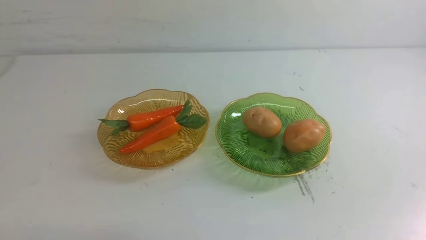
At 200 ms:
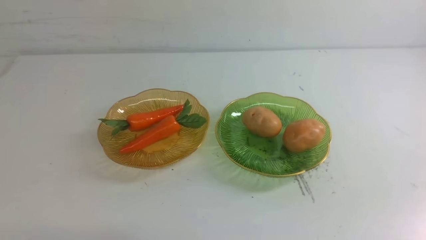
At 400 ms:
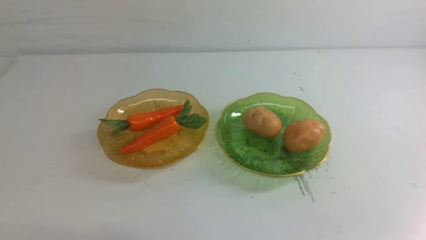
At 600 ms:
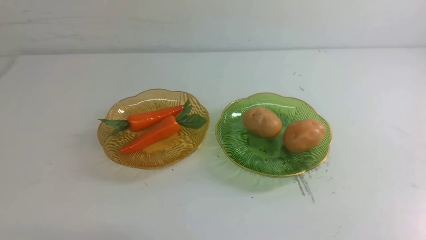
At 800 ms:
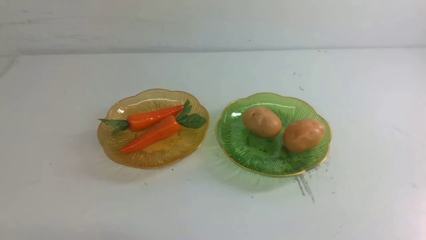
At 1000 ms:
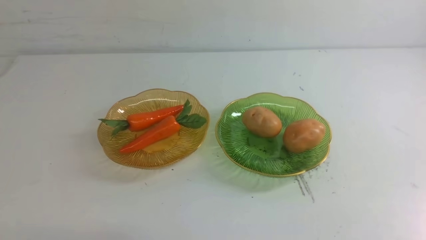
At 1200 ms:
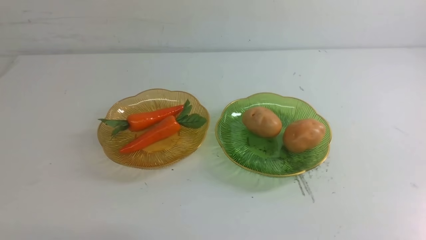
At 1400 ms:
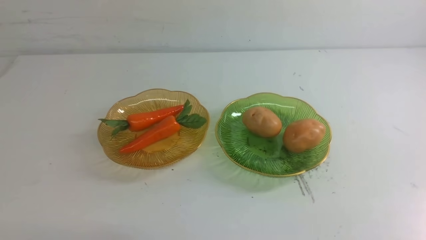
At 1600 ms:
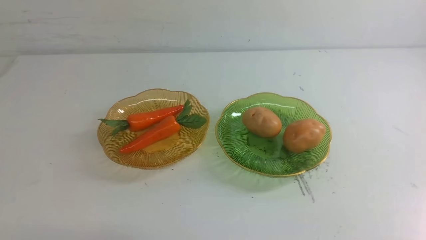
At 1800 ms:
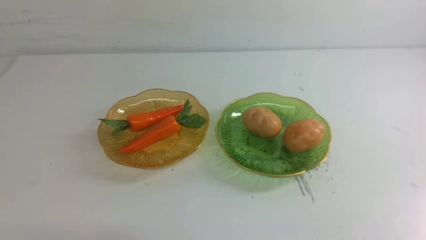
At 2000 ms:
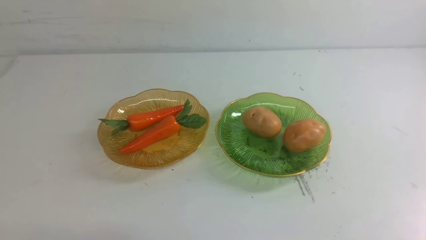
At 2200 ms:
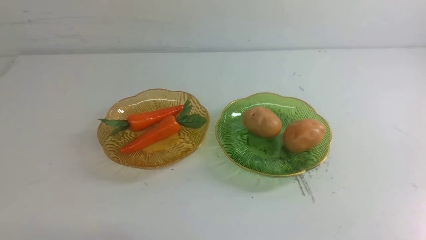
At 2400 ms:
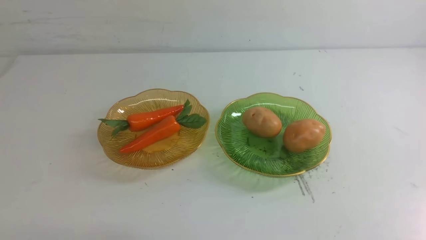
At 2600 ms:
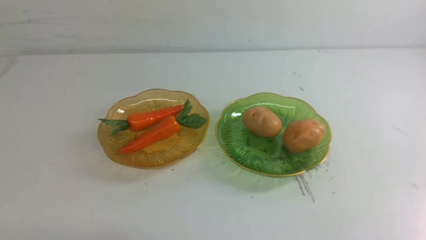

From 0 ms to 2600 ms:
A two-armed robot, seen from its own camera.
From 1200 ms to 2600 ms: Neither gripper changes place.

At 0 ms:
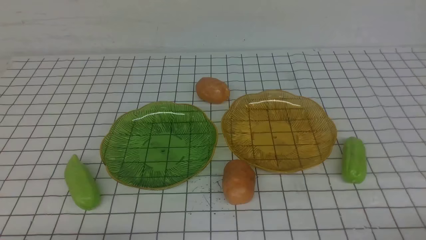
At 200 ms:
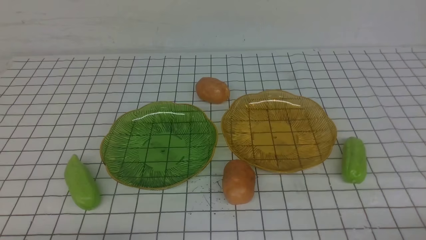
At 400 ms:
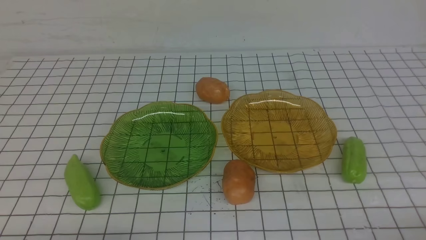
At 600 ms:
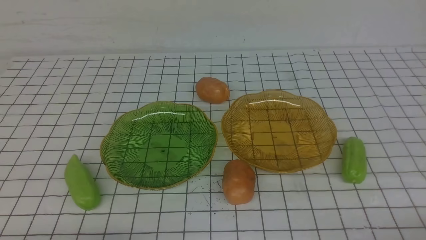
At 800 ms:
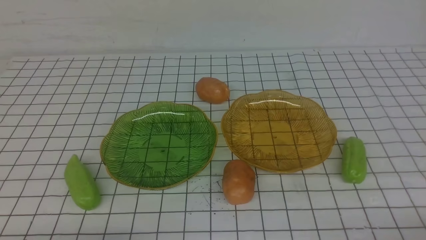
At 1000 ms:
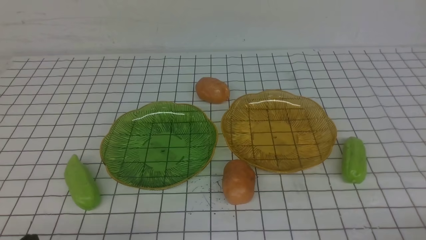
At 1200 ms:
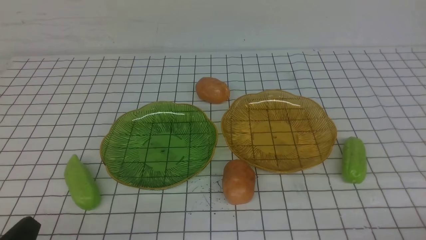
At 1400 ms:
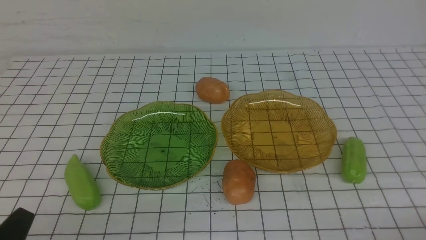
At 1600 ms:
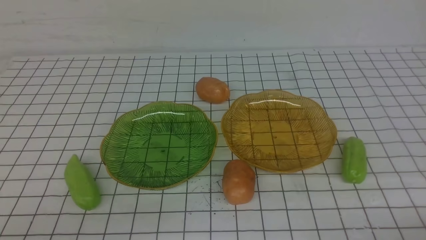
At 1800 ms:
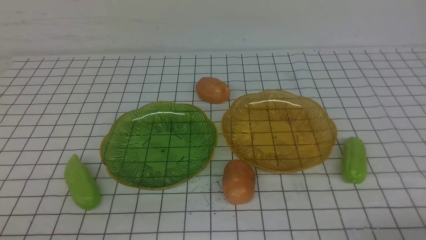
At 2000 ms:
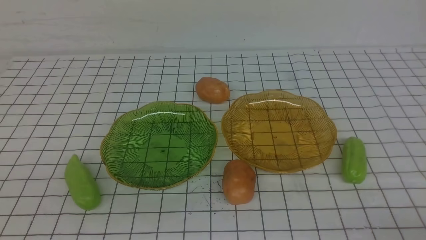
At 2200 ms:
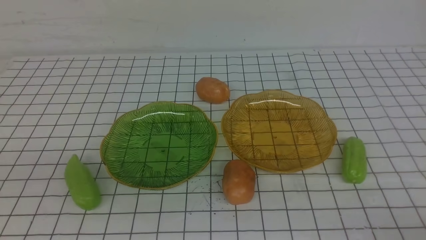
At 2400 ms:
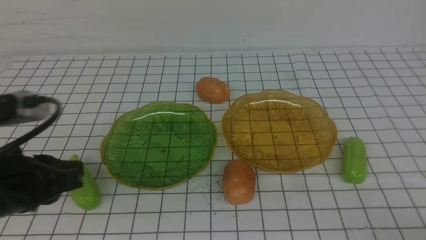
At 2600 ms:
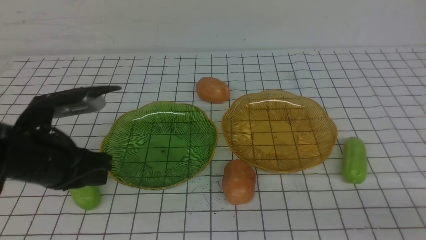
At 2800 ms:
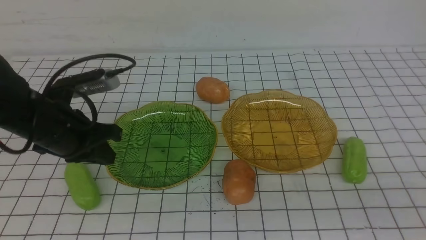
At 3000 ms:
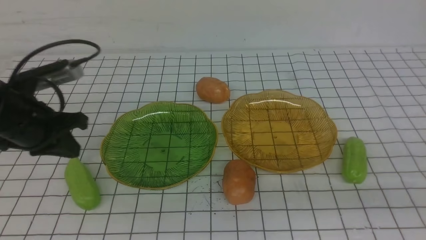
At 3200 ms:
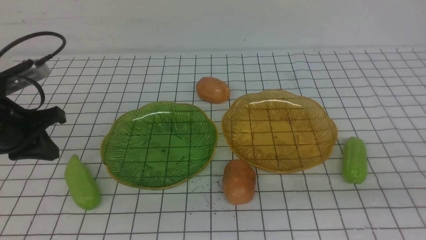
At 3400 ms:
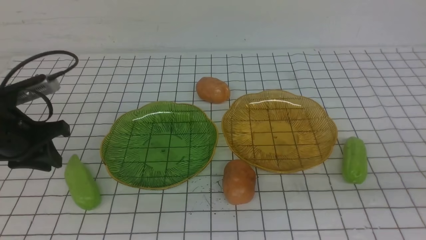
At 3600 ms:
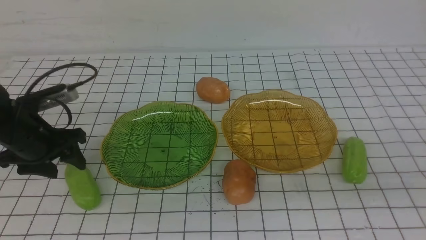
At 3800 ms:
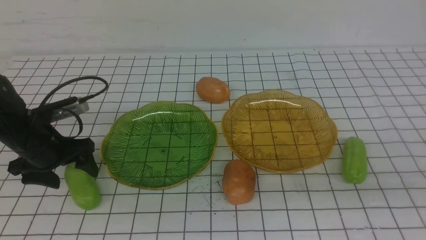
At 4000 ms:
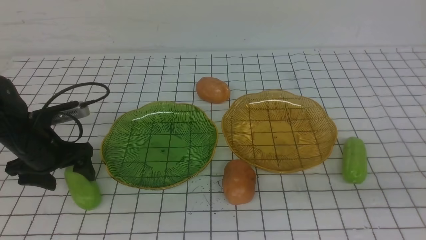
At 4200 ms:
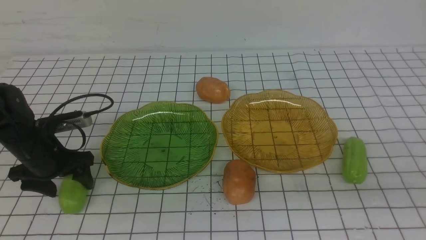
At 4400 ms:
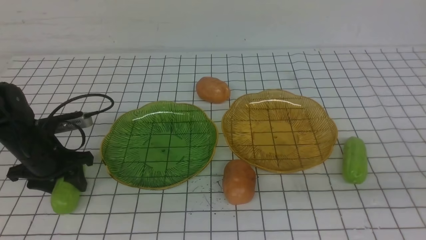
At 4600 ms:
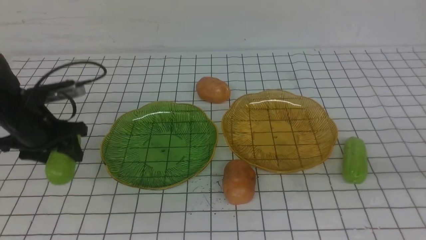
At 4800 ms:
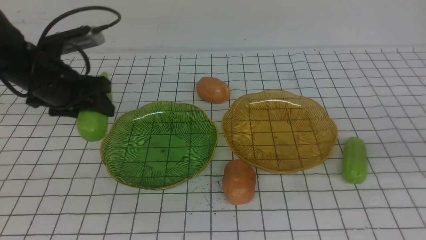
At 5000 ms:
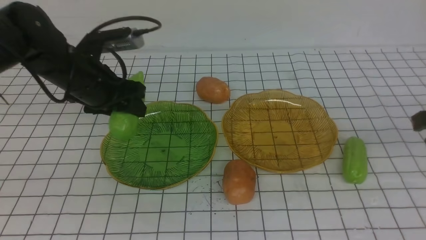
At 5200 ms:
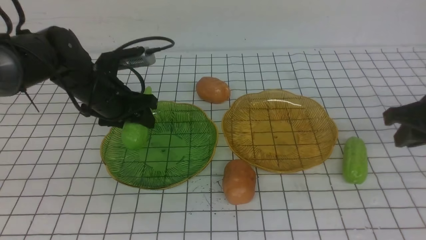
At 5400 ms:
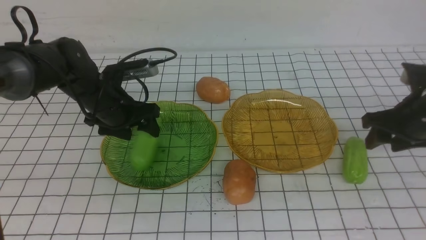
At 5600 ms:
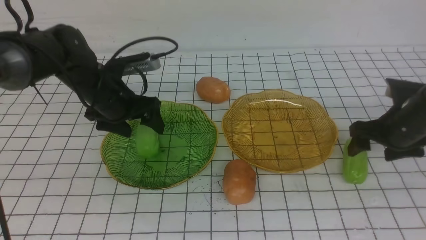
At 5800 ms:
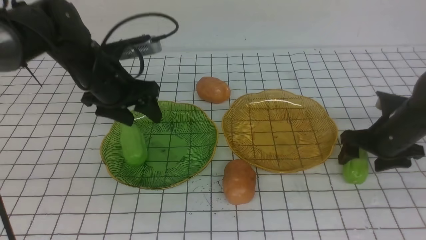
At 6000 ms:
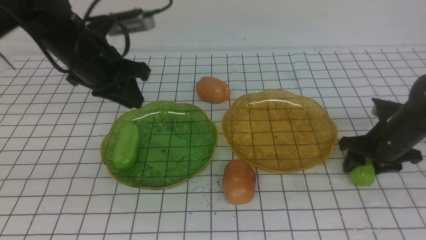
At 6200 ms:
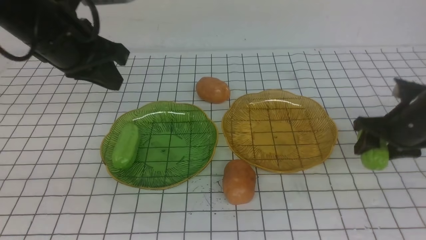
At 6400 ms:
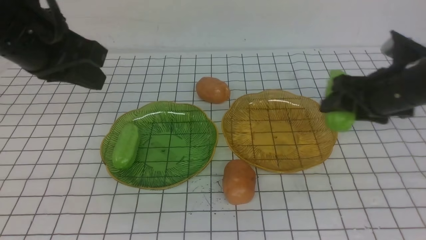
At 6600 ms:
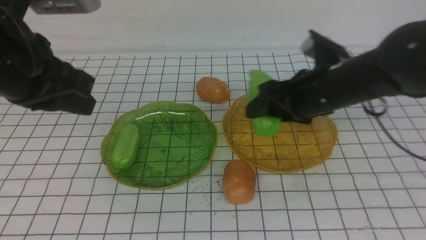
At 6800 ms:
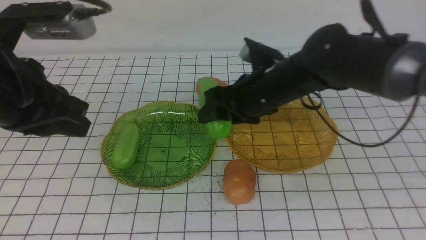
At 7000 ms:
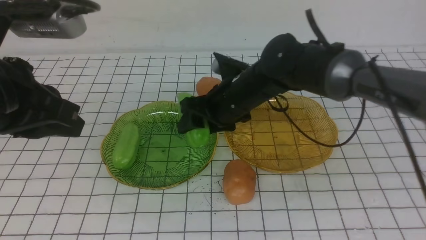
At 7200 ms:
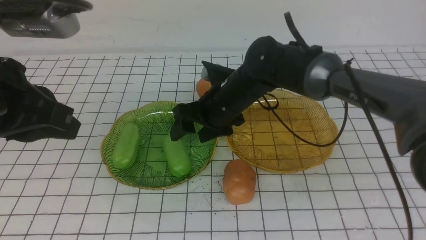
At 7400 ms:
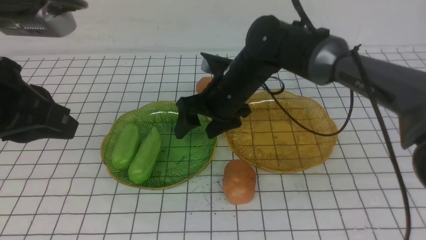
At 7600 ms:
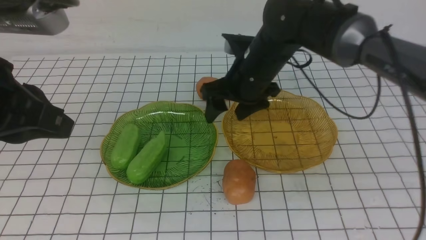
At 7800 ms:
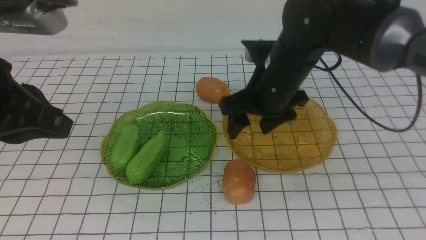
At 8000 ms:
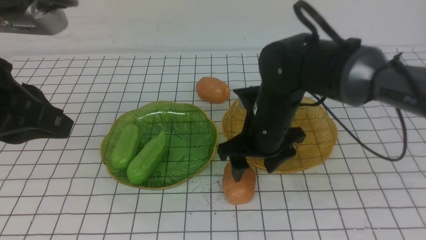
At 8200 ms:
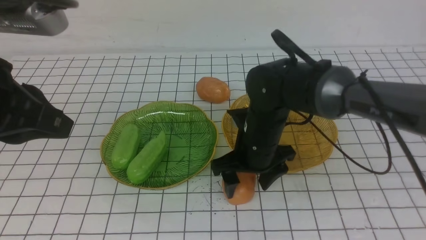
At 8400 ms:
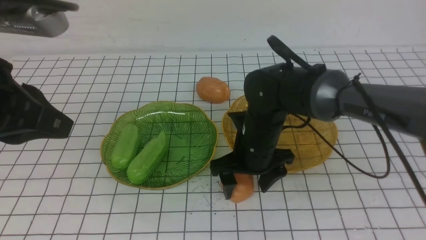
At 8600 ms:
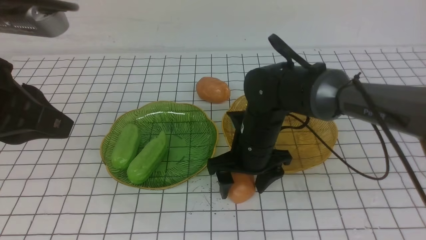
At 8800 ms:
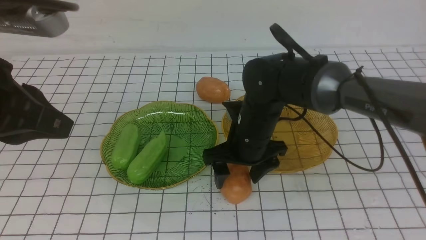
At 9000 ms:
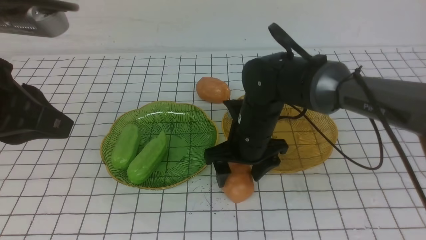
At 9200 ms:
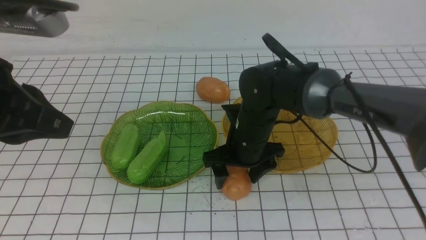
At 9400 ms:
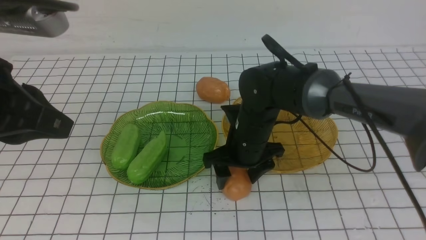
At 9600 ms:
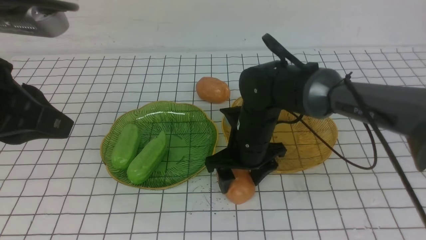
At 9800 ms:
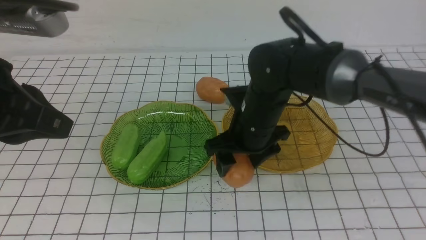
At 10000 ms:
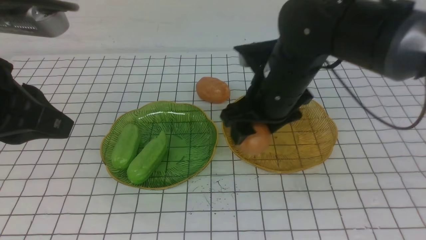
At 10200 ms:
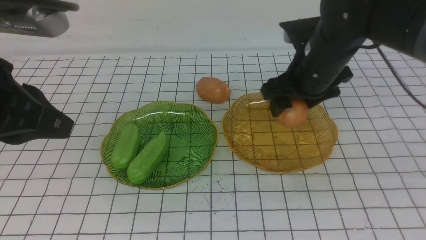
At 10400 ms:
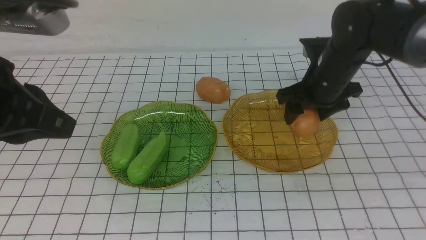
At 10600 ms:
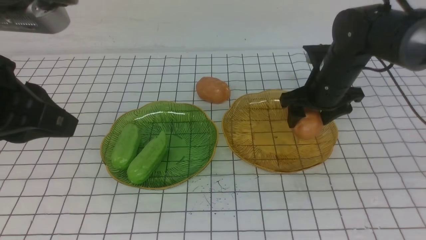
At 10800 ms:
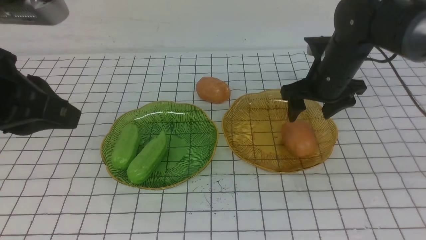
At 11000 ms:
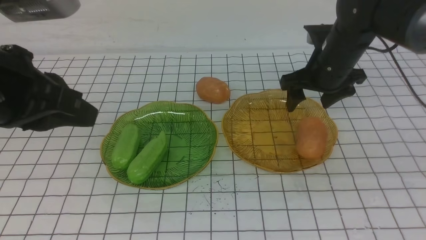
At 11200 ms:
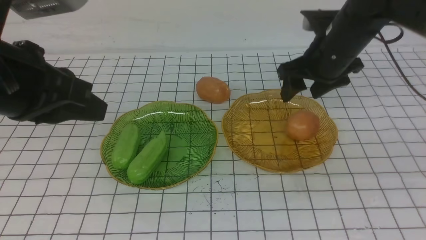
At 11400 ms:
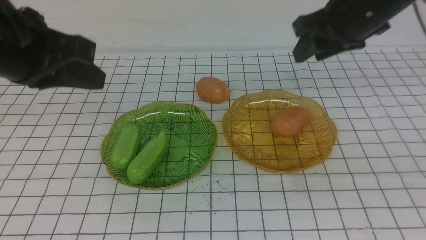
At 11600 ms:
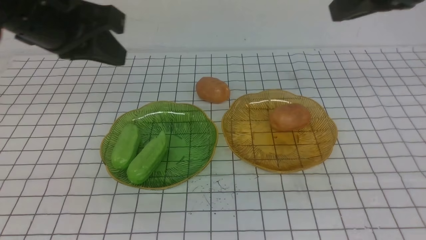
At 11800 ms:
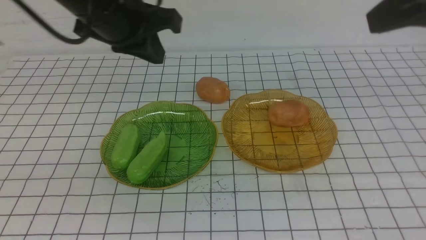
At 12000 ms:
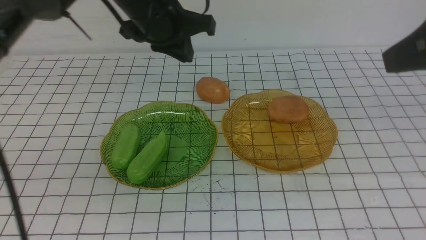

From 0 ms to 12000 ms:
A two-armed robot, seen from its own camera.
Step, from 0 ms to 5600 ms: use the left arm to grab a chayote and put it into the left plate.
Step, from 5800 ms to 7200 ms: use the left arm to grab a chayote and put it into the left plate.
Step, from 7400 ms to 10600 ms: Grab a potato with your right arm and put it on the right plate.
From 1600 ms to 3000 ms: The left gripper travels forward by approximately 25 cm.
From 3000 ms to 4400 ms: The left gripper heads downward, covering about 10 cm, and opens up.
From 4400 ms to 6000 ms: The left gripper swings up and down, approximately 15 cm each way, with 2 reversals, and closes, while the right gripper is displaced forward and downward by some 30 cm, and opens its fingers.
From 6000 ms to 7600 ms: The left gripper moves backward, roughly 15 cm. The right gripper heads to the left, covering roughly 25 cm.
From 7600 ms to 9000 ms: The right gripper moves downward, approximately 10 cm.
From 9000 ms to 10400 ms: The right gripper travels to the right, upward and forward by some 15 cm.
From 10400 ms to 12000 ms: The right gripper shifts roughly 30 cm backward and upward, and closes. Meanwhile the left gripper travels forward and to the right by about 25 cm.

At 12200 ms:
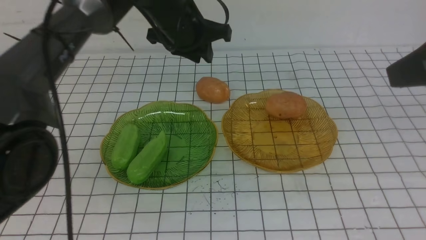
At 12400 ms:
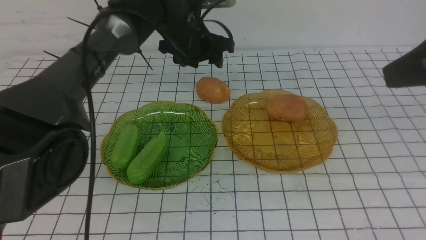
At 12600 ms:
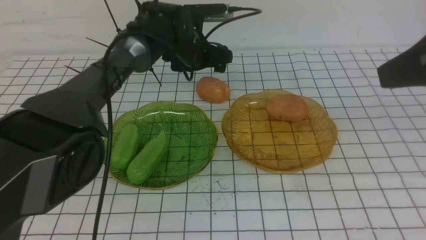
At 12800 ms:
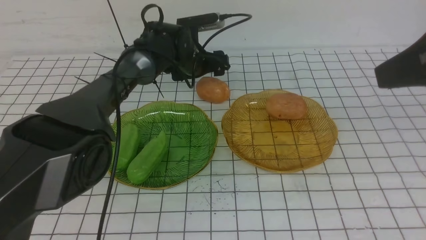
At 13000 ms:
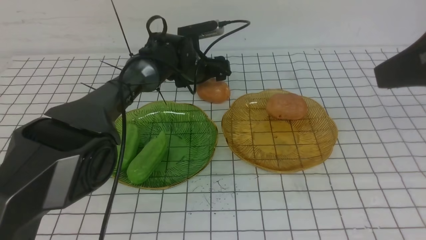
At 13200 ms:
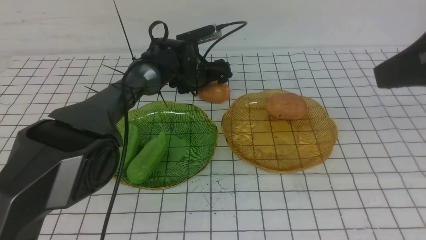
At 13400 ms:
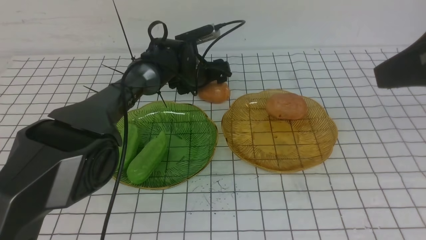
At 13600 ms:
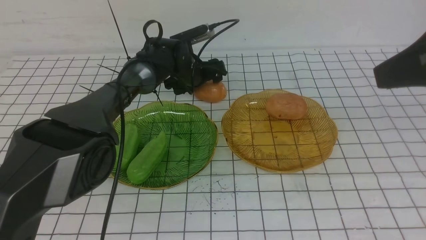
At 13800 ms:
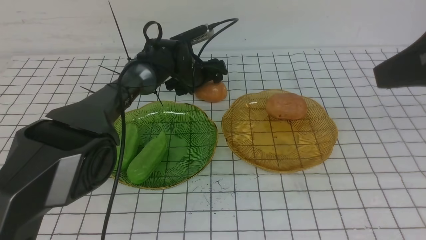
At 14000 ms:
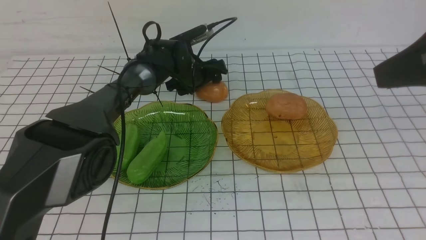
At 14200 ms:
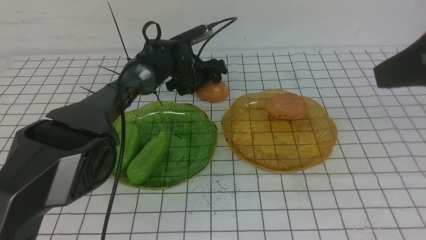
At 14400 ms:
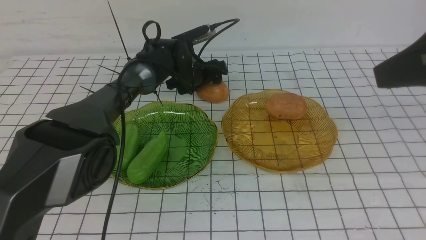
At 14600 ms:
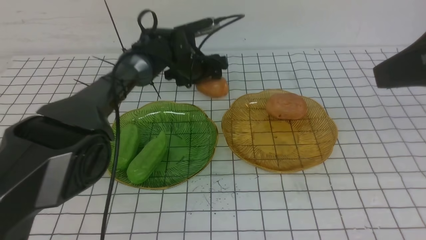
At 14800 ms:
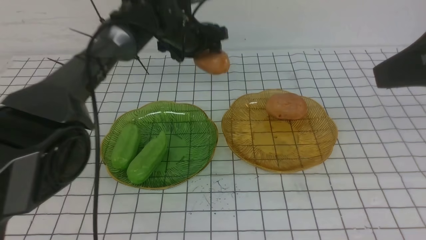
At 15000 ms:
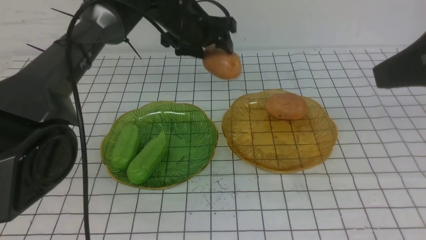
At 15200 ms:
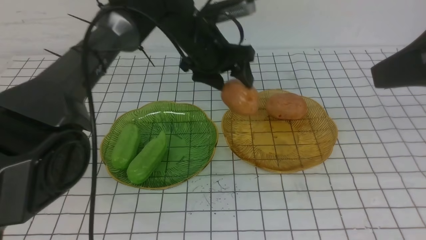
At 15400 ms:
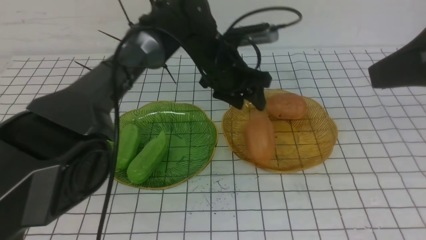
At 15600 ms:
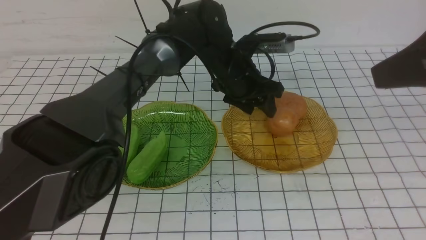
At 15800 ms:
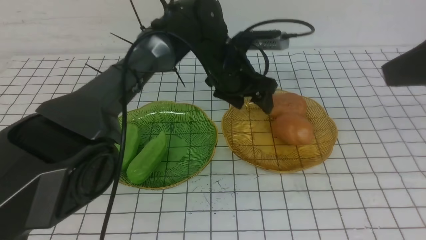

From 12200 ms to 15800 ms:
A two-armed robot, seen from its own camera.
From 12200 ms to 14000 ms: The left gripper is displaced downward and forward by approximately 20 cm, and opens its fingers.
From 14000 ms to 15800 ms: The left gripper travels upward, backward and to the right by approximately 15 cm.
